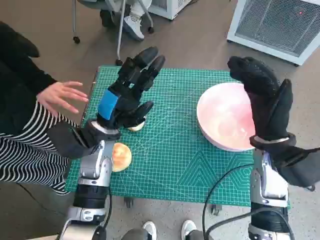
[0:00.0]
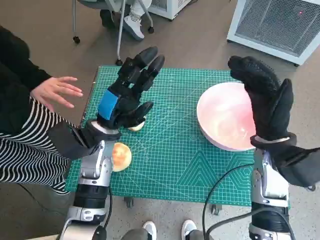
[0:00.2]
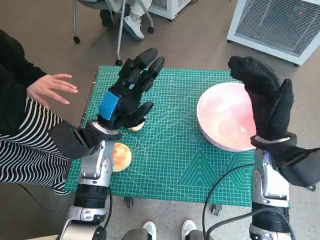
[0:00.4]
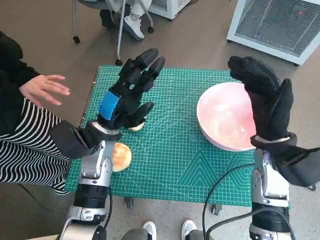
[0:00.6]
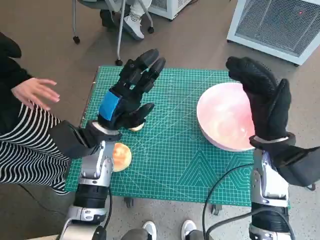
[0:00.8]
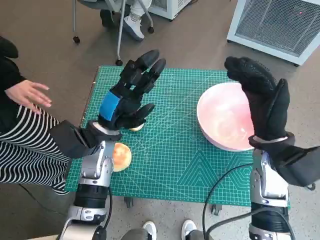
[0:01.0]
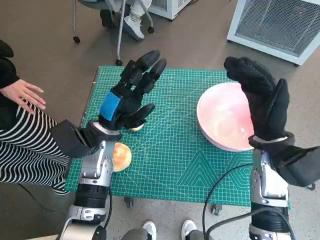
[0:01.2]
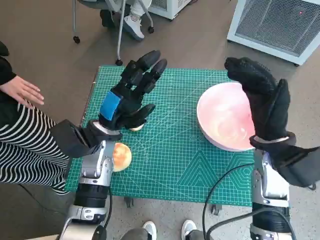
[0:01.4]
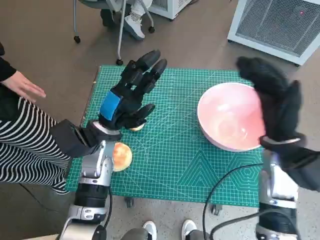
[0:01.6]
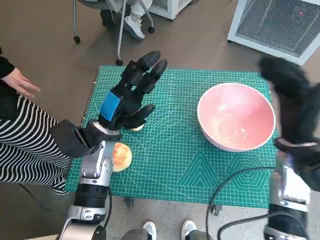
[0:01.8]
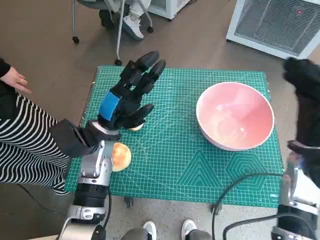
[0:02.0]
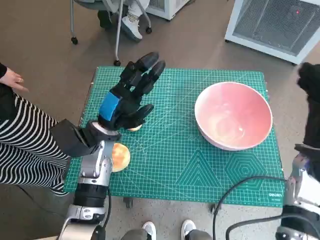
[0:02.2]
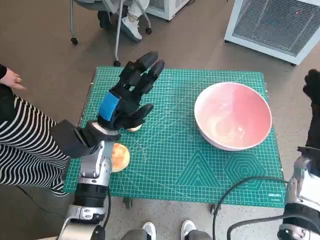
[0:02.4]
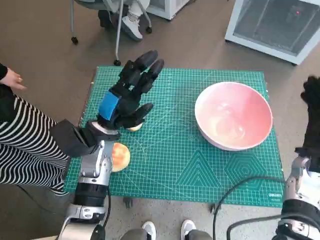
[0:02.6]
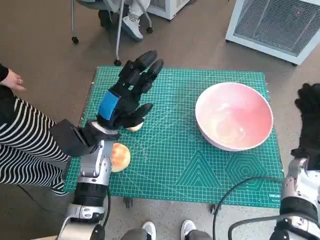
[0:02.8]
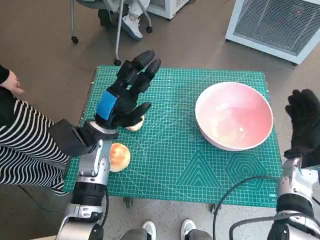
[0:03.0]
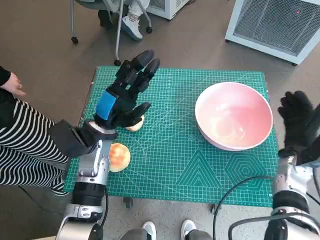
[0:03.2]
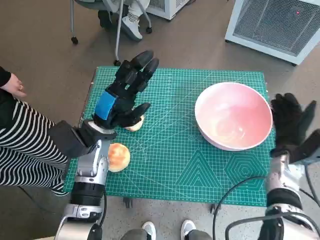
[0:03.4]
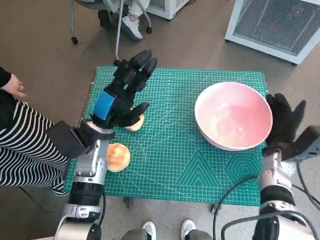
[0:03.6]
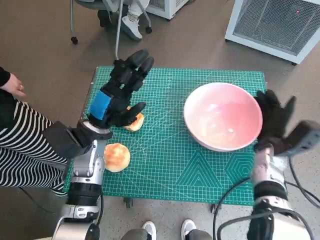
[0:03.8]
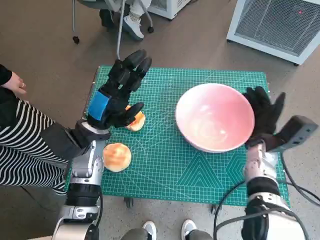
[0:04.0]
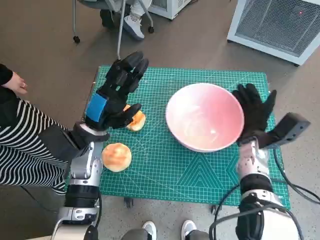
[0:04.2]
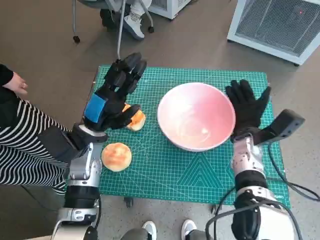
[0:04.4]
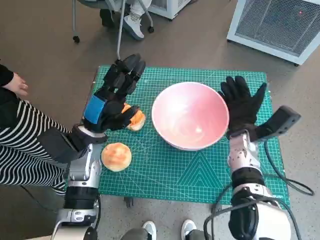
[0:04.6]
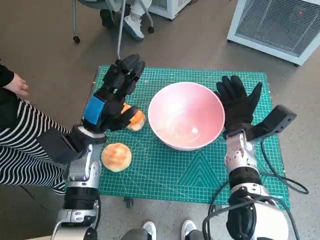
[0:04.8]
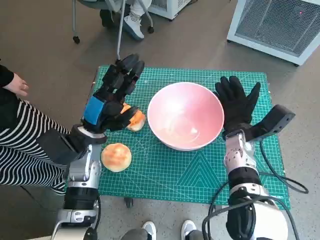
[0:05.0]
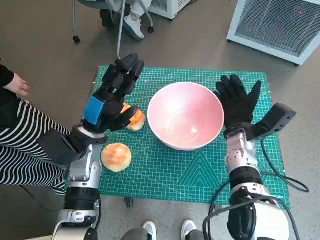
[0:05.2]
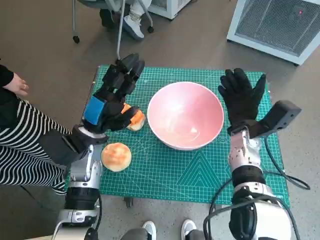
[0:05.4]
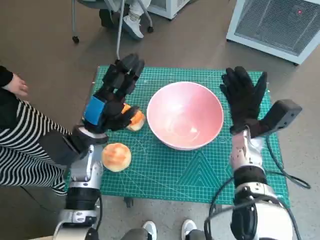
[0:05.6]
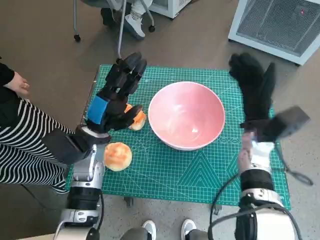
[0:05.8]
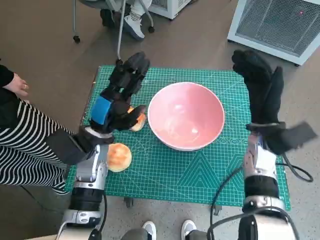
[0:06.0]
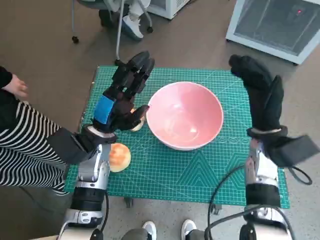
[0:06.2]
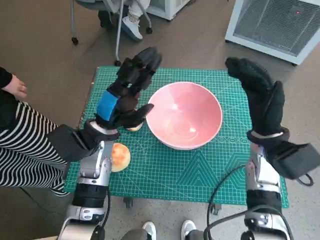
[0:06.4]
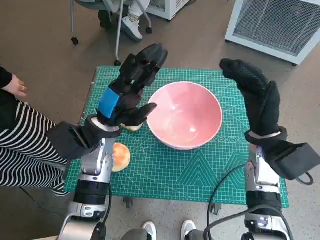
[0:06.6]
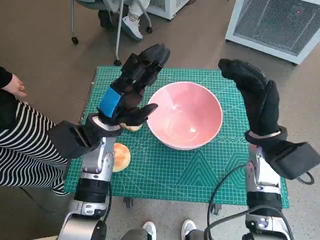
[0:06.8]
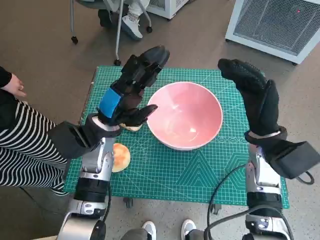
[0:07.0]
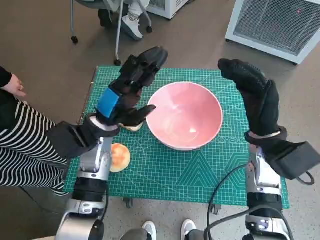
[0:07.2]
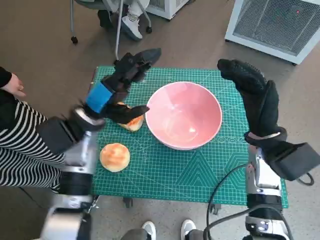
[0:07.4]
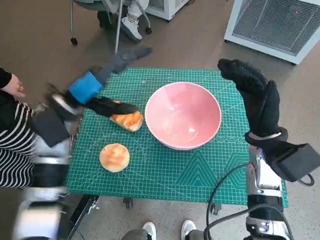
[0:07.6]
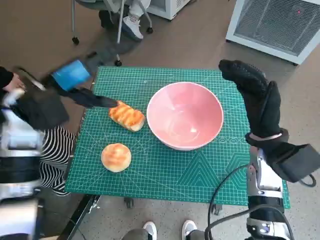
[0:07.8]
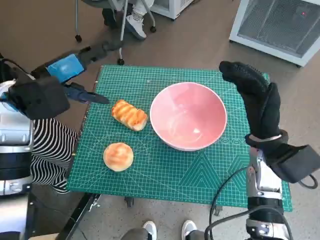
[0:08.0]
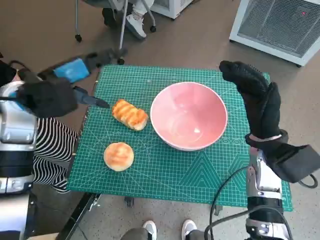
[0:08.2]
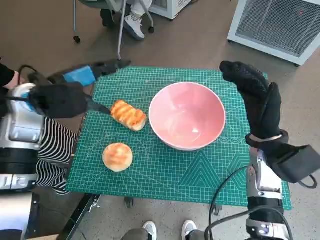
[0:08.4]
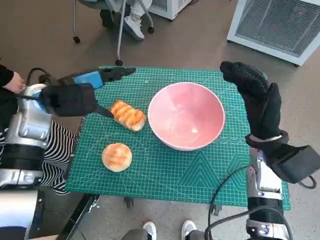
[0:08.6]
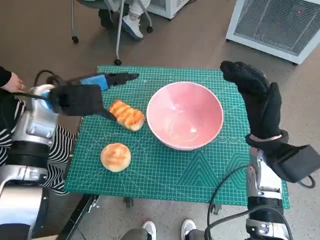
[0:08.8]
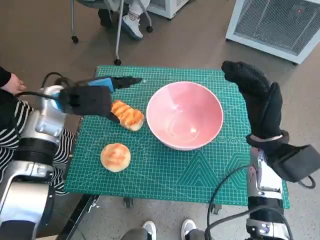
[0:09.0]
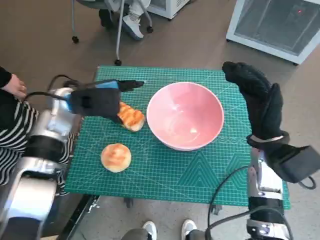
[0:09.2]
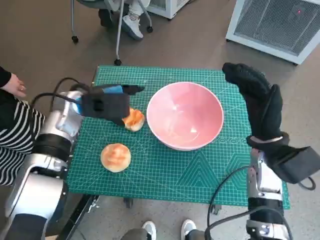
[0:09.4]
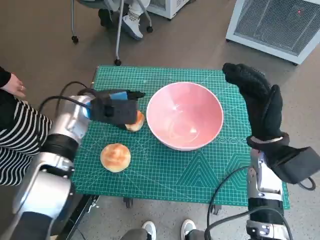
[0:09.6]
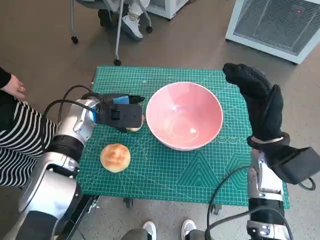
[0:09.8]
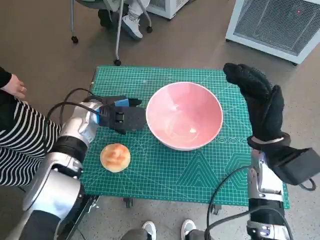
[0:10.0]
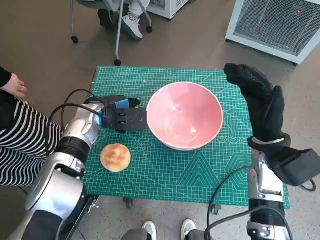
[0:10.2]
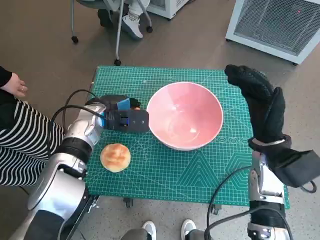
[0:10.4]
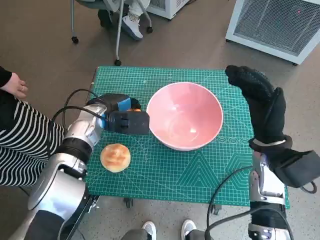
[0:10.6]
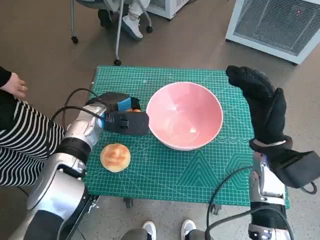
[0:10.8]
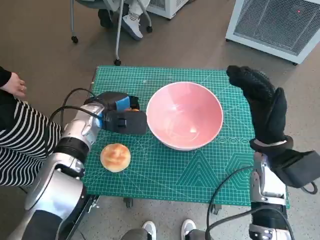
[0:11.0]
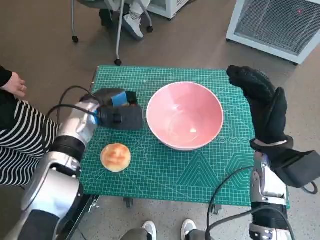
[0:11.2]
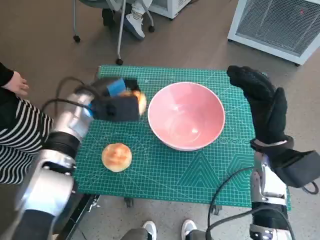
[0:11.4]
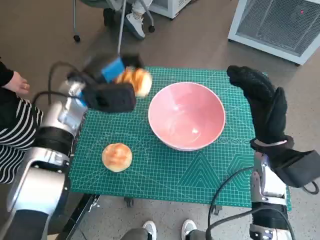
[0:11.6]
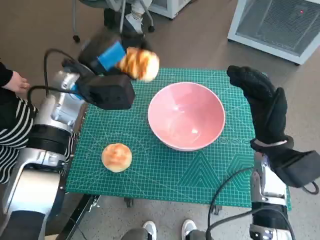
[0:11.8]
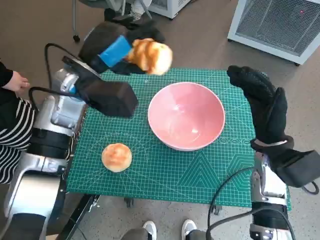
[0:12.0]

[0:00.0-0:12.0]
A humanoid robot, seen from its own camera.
Task of the whole recording: Push the bowl into the center of the table and put the bread into the bowl.
Step, 0:00.0 to 0:05.4: Move the pink bowl to the center of table with right hand.
Step, 0:05.6 to 0:10.6: Grasp the long bread with left hand.

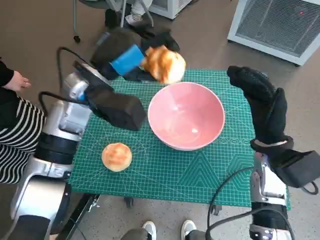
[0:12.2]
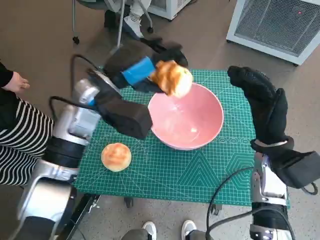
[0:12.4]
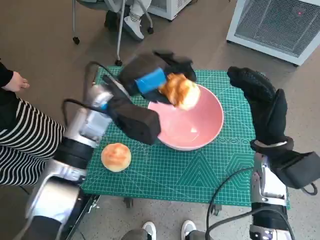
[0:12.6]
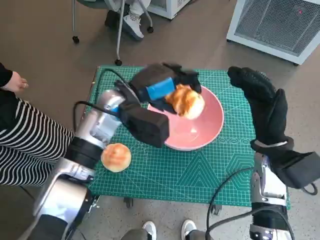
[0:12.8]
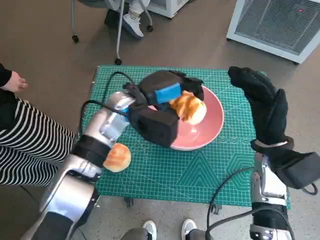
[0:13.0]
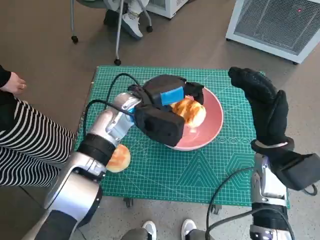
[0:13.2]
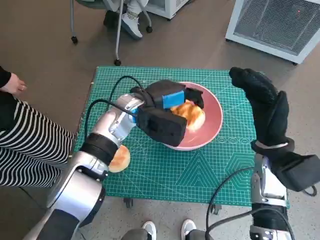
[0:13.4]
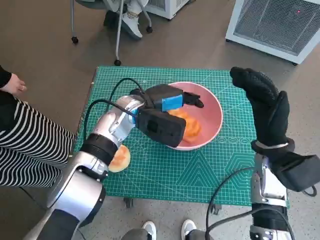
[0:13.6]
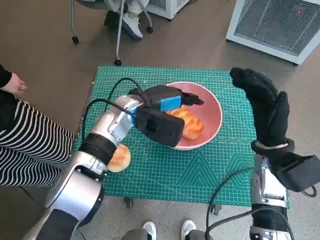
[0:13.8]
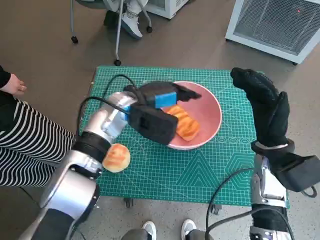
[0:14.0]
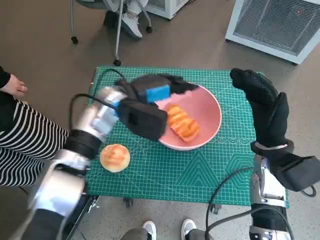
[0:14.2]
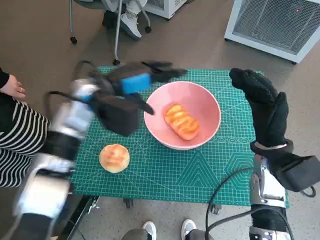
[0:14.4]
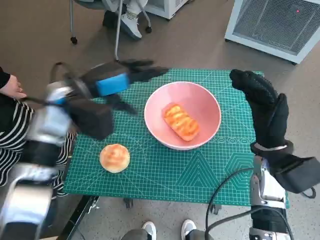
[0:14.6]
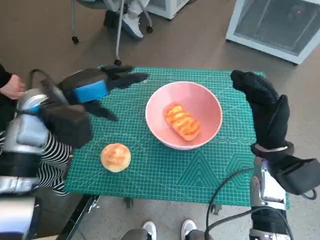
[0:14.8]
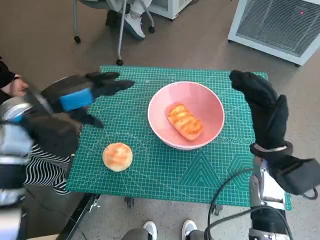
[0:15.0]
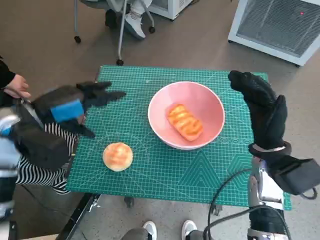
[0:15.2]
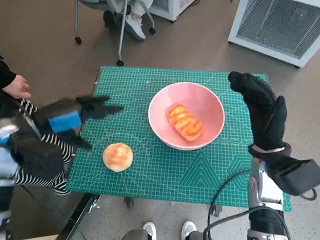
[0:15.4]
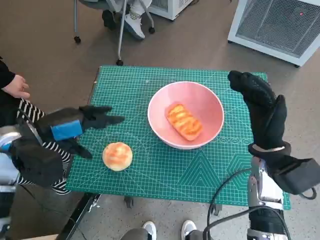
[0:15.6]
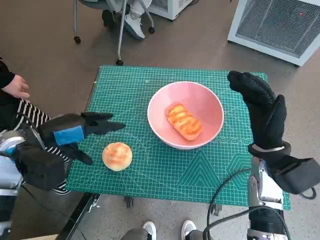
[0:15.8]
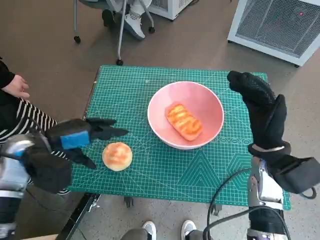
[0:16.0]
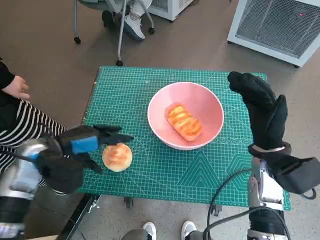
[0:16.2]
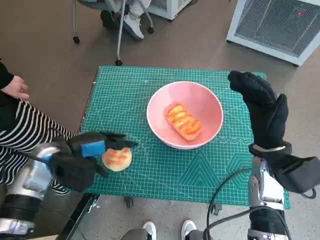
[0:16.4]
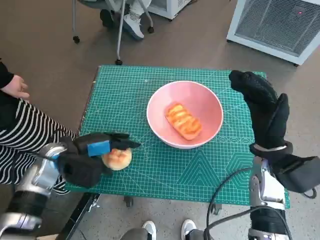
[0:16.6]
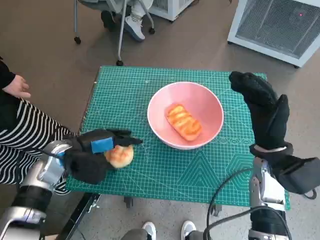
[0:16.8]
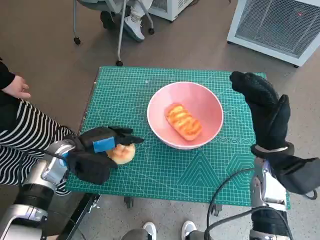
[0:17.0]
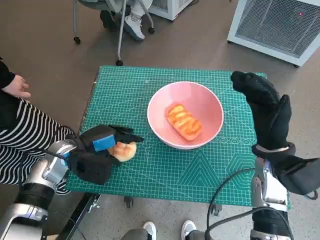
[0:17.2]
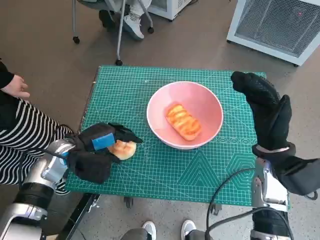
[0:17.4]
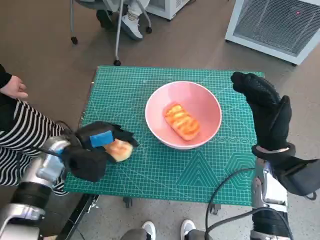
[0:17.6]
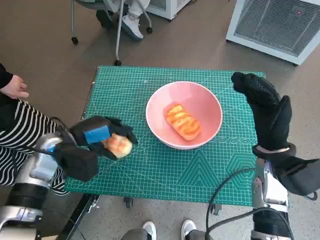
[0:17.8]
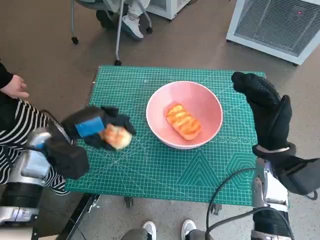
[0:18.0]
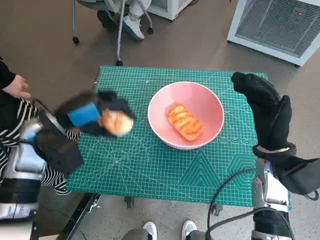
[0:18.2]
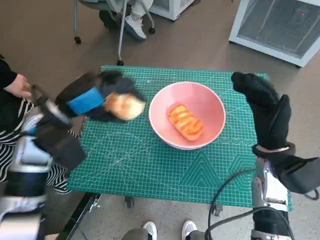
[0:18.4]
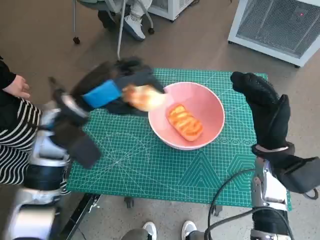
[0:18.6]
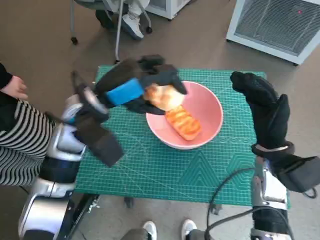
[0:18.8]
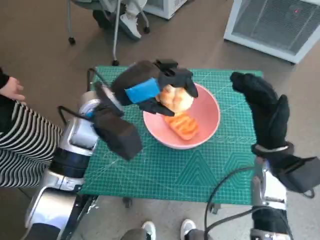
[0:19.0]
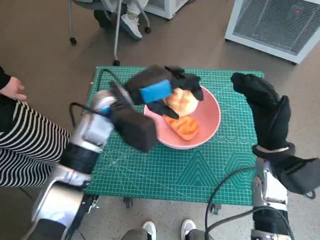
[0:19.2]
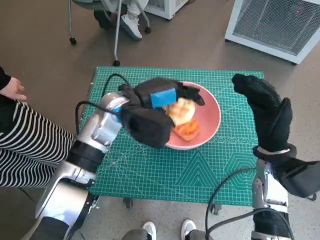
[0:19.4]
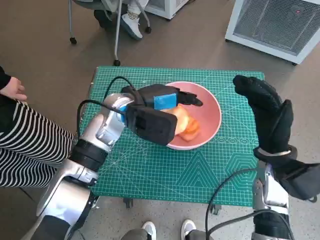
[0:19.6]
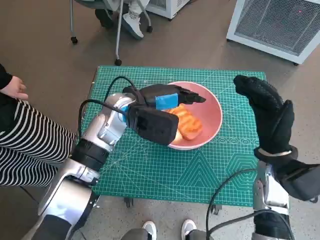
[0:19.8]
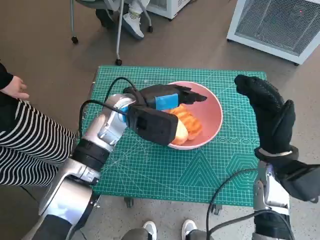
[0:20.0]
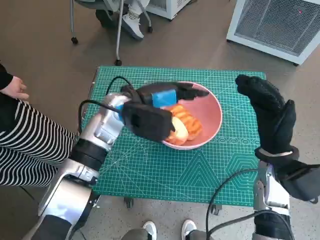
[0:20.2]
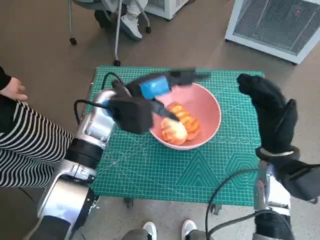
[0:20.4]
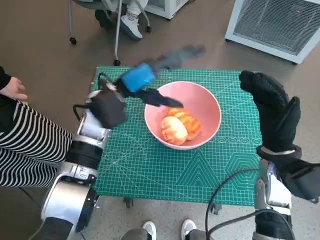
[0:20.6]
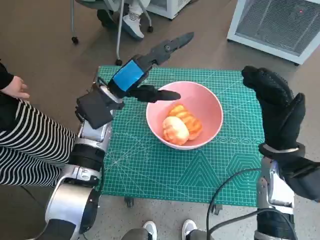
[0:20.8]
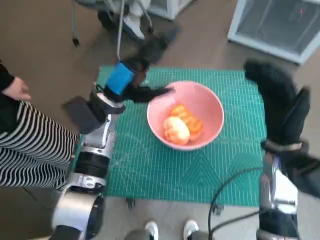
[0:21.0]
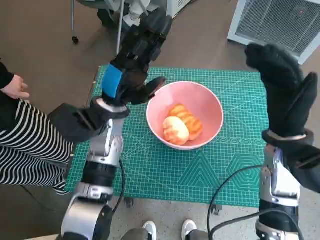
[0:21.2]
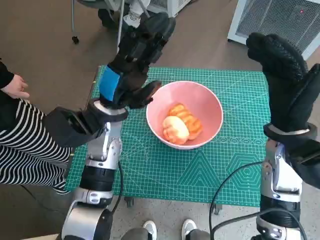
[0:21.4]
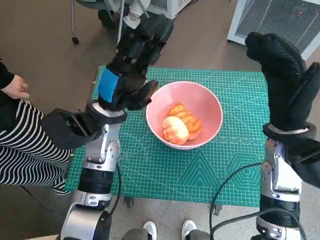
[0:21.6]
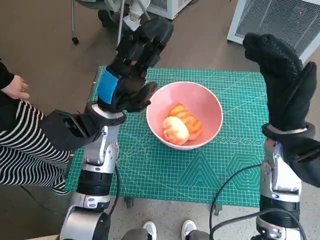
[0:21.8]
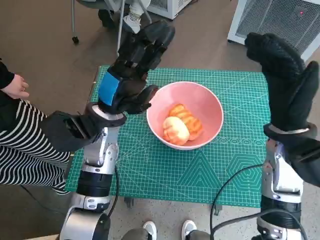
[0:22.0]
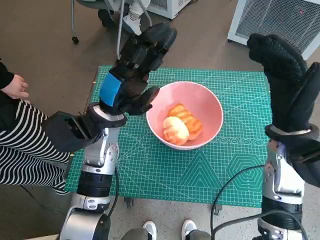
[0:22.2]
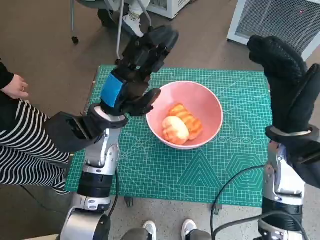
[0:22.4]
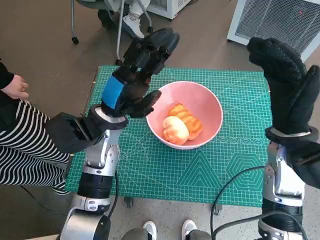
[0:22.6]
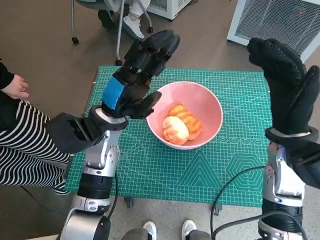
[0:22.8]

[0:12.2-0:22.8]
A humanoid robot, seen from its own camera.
Task of the whole recording: Push the bowl into the center of the table and put the bread into the bowl.
Step, 0:12.2 to 0:14.2: Place the long bread in pink bowl with left hand.
Step, 0:14.4 to 0:17.4: Grasp the round bread with left hand.
Step, 0:17.6 to 0:20.4: Place the round bread in pink bowl with left hand.
